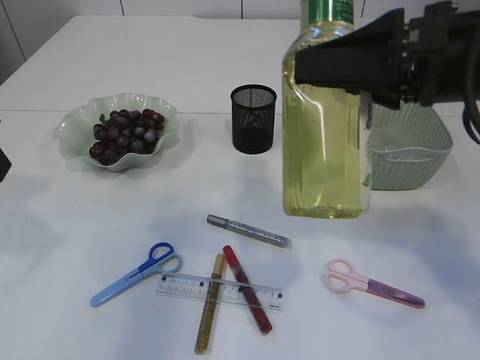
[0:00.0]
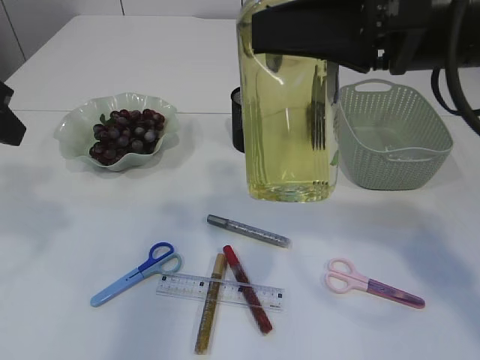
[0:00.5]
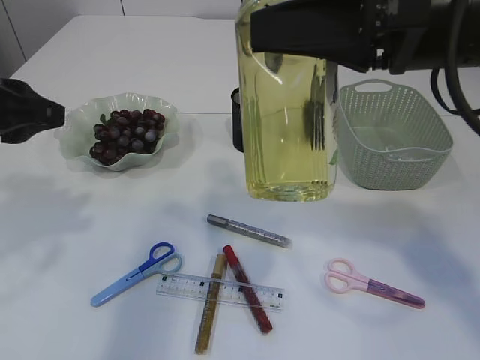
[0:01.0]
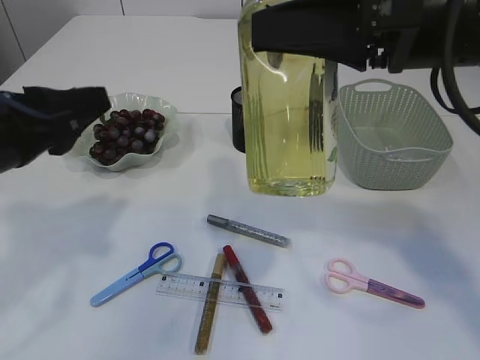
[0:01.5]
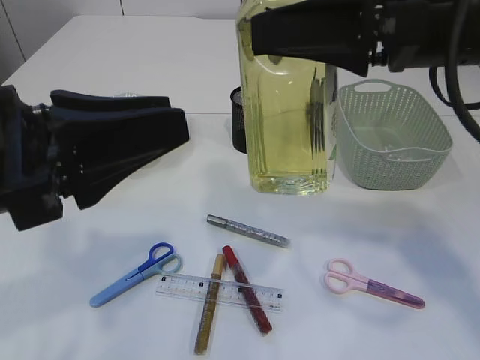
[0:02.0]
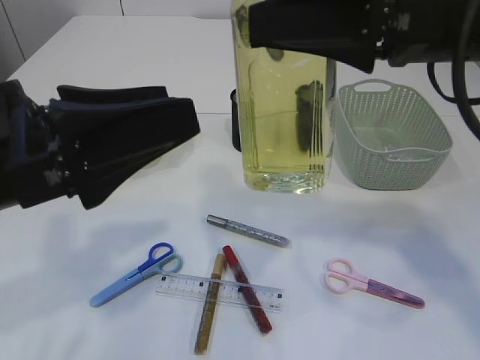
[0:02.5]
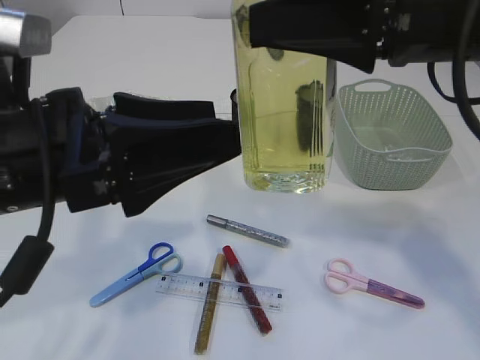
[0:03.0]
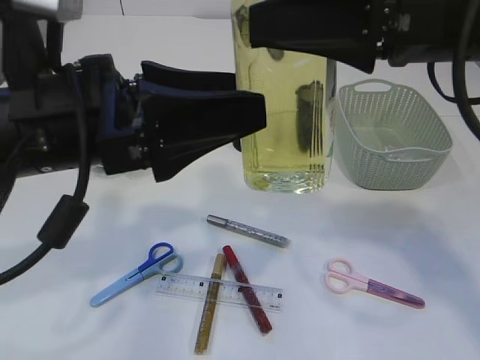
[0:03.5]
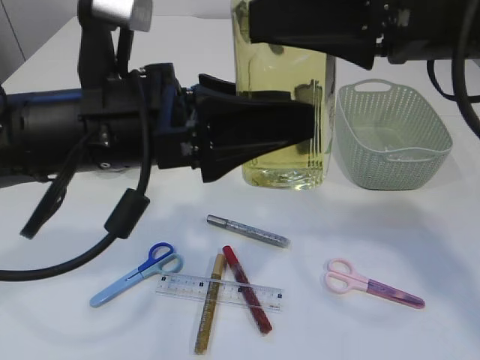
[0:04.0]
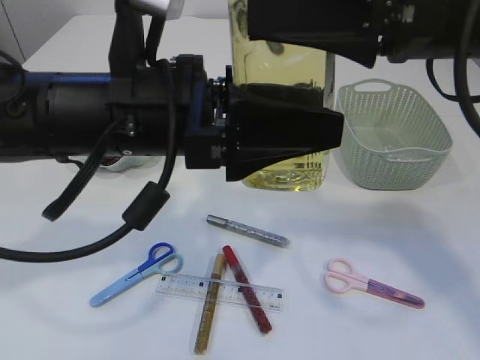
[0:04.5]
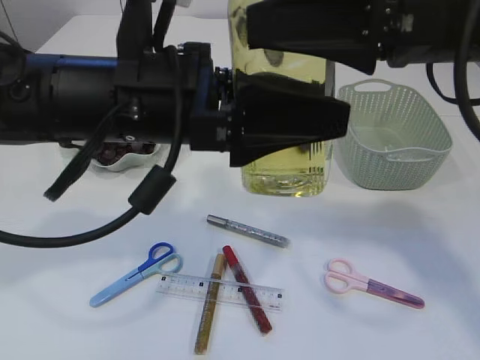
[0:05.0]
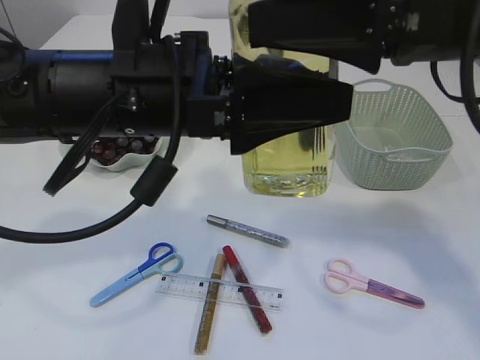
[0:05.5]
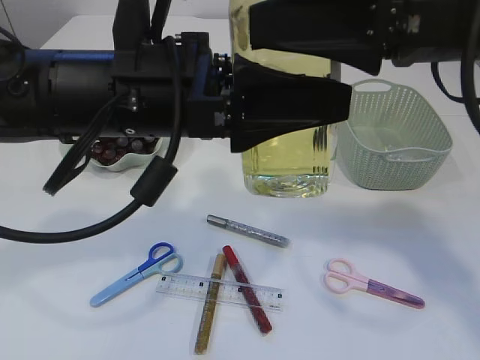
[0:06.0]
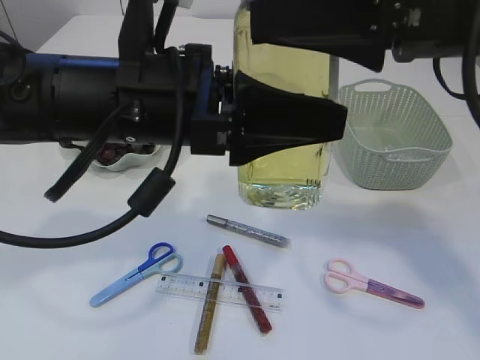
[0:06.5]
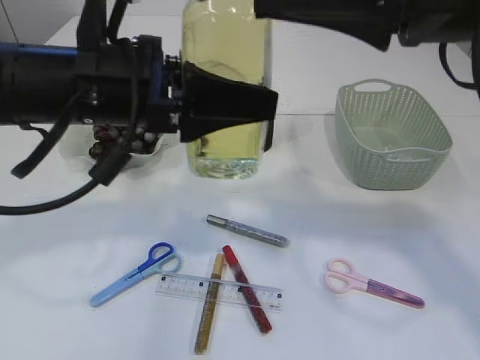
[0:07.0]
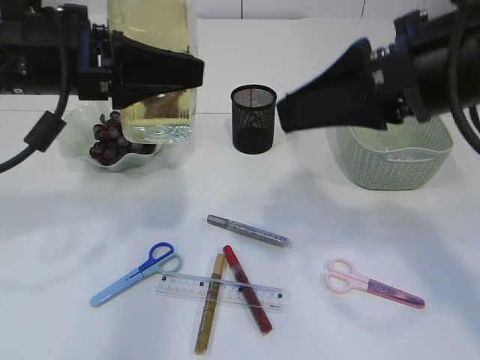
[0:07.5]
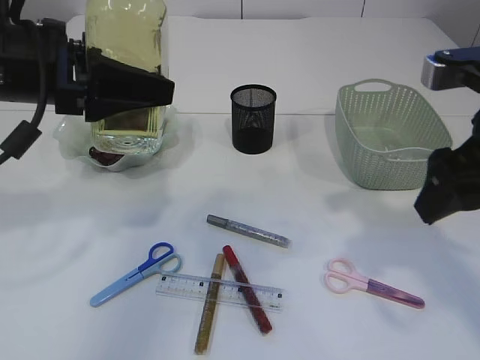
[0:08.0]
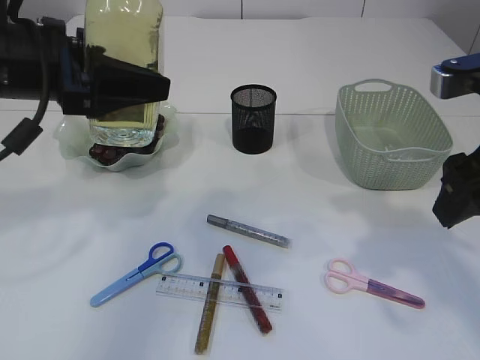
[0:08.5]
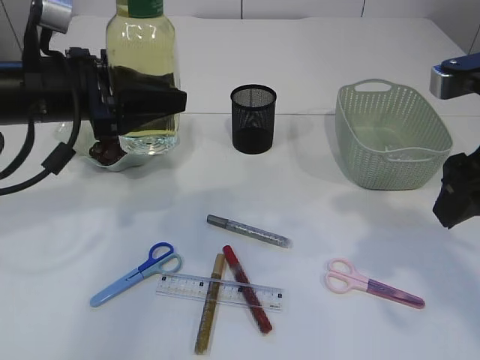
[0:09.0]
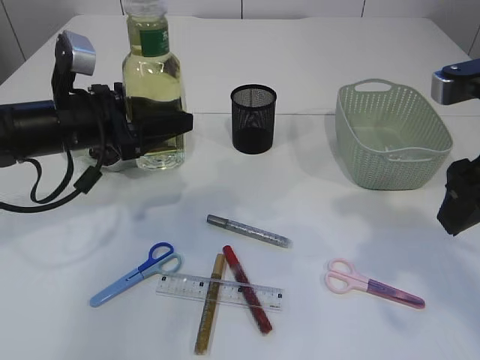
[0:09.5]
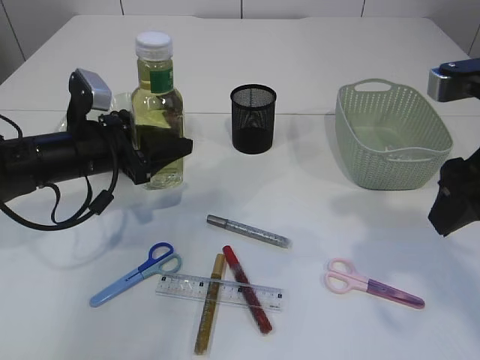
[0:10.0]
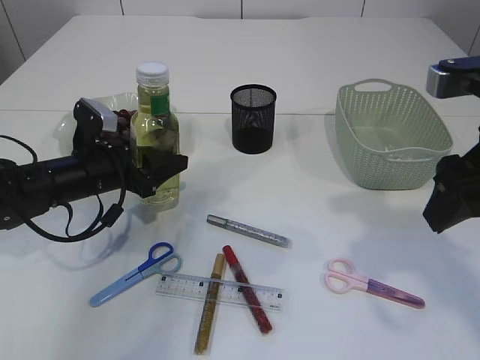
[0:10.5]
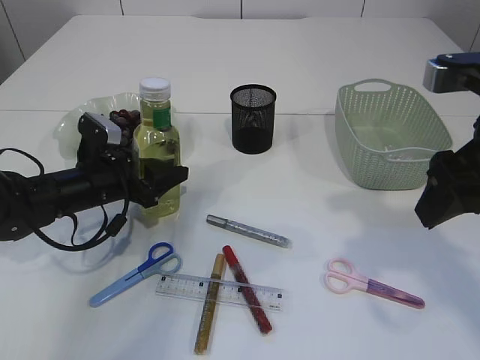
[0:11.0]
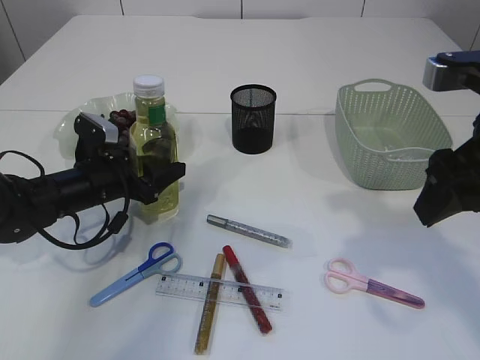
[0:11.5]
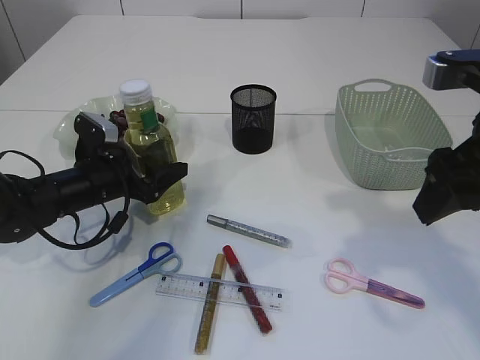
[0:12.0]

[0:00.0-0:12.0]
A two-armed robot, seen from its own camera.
Step, 0:00.0 to 0:07.5: transfer the bottle to the left arm.
0:00.0 to 0:02.0: The left gripper goes some 10 cm to the right and backward.
0:02.0 to 0:04.0: The left gripper moves to the right and forward, roughly 10 cm, and opens its fingers.
0:06.0 to 0:08.0: The left gripper moves to the left and forward, some 15 cm. The right gripper moves to the right and downward, roughly 10 cm.
0:08.0 to 0:10.0: The left gripper goes approximately 15 cm downward and forward.
0:10.0 to 0:12.0: The left gripper is displaced downward by some 5 cm.

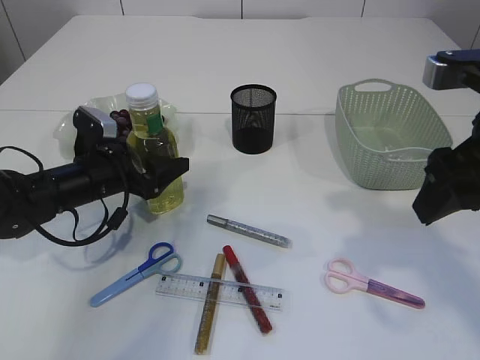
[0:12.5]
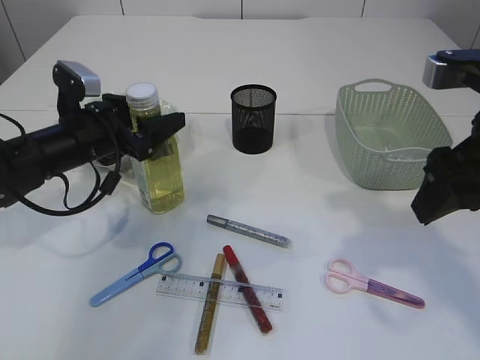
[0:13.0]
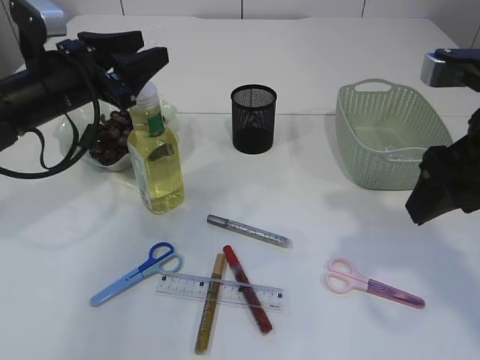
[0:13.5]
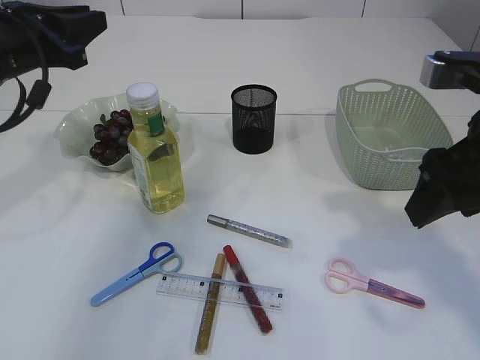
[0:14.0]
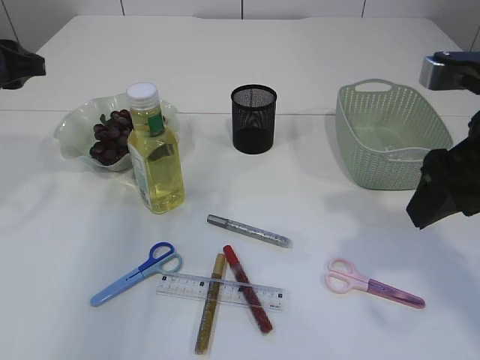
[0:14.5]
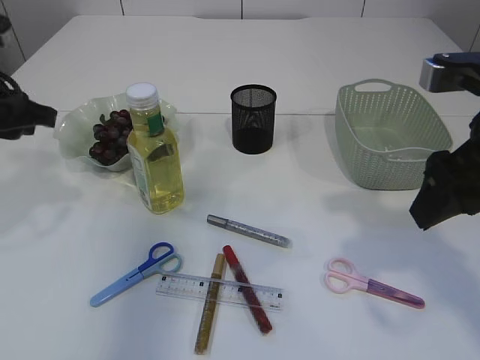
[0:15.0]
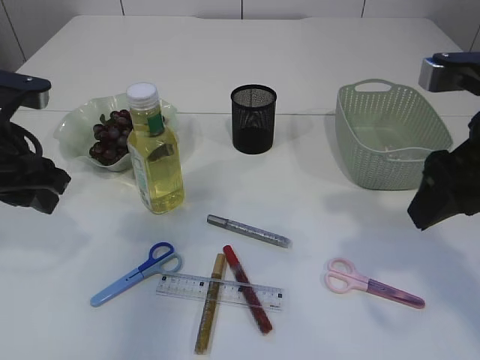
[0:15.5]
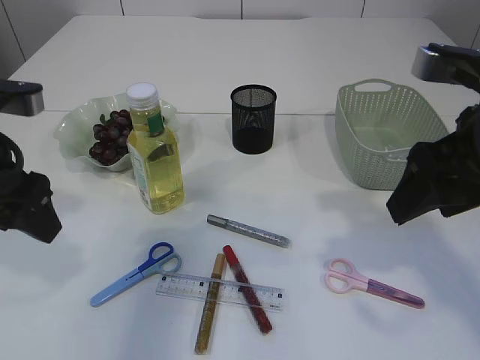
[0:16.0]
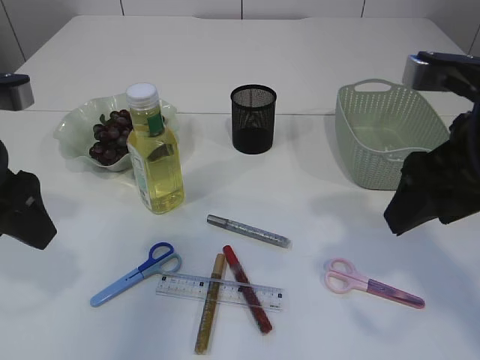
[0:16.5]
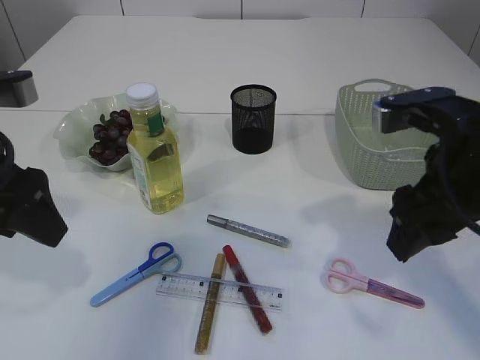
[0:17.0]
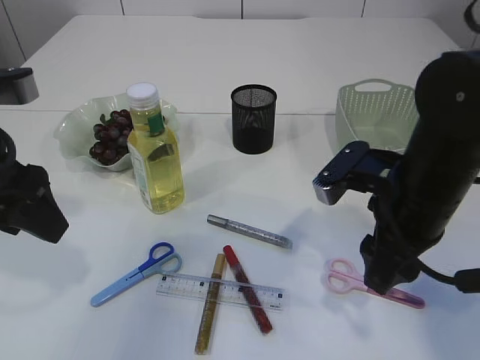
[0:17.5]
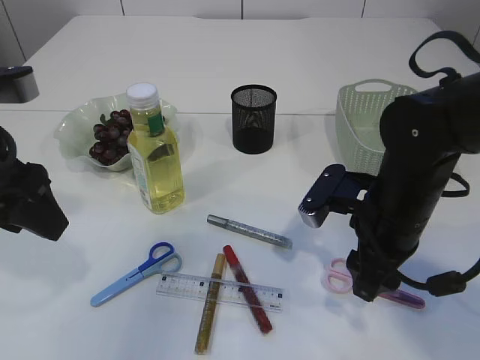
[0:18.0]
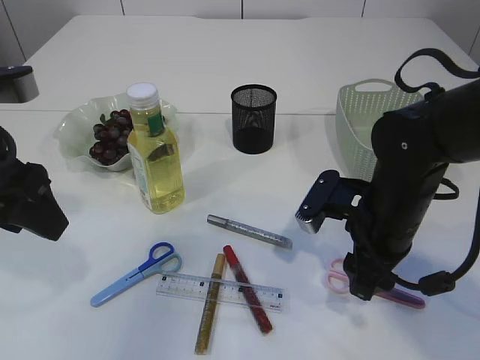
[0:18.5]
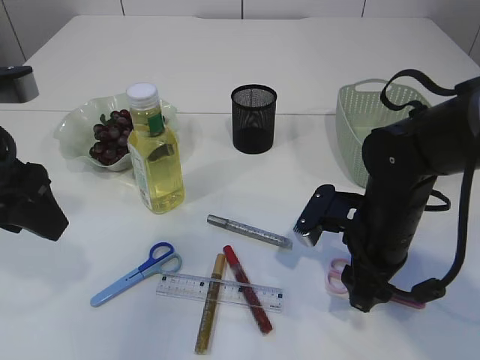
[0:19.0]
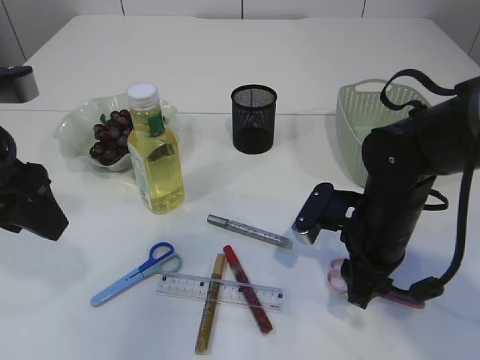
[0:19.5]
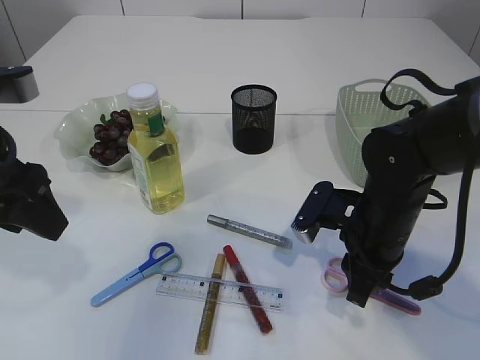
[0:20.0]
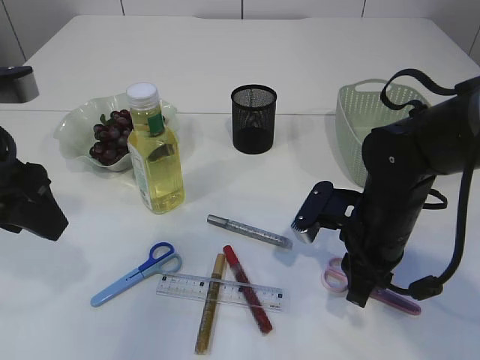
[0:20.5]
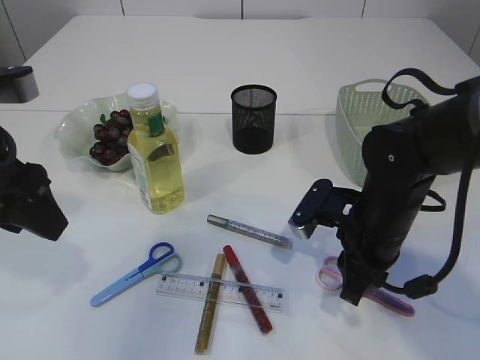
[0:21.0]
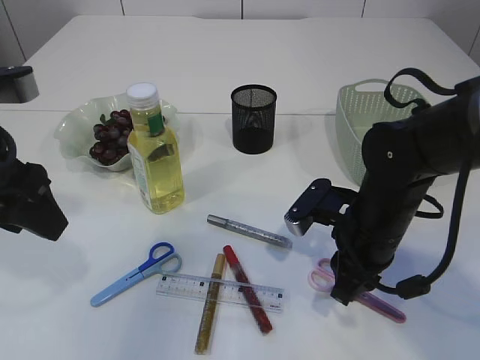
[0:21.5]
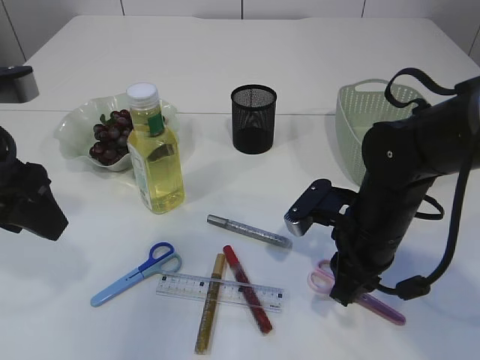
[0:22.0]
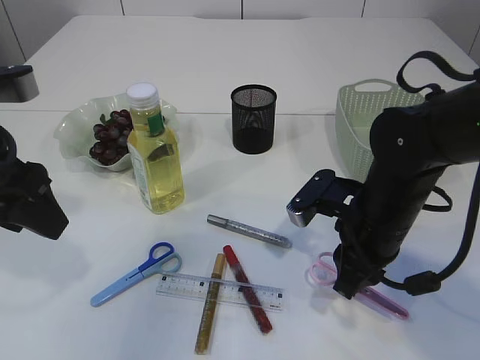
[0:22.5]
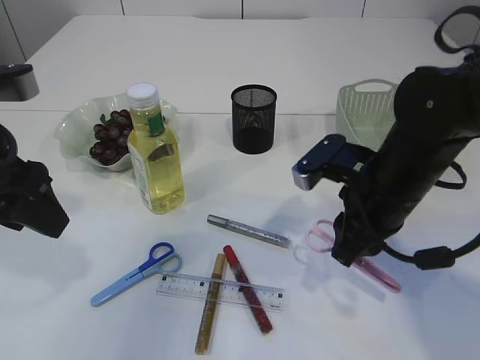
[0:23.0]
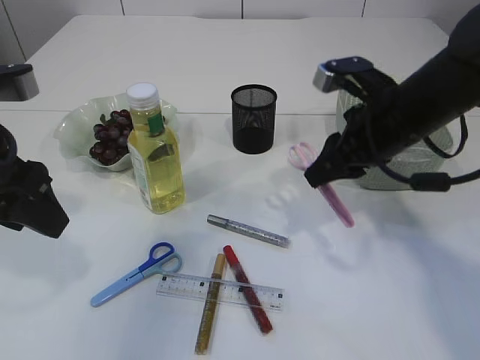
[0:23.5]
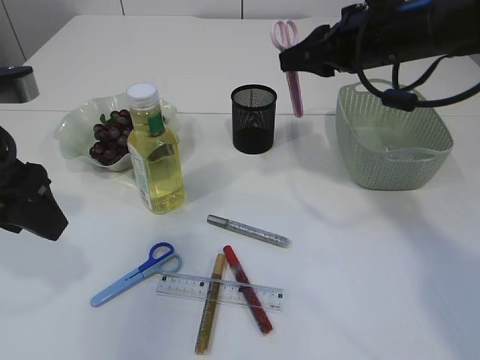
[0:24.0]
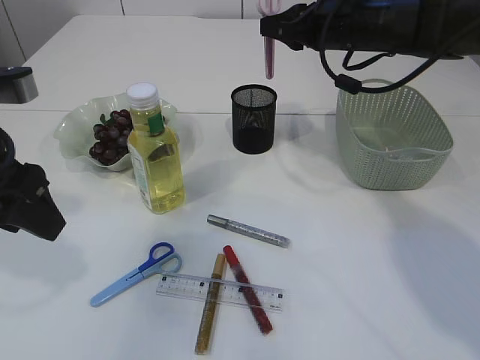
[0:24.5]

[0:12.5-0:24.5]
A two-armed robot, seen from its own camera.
Step, 0:14.0 to 0:23.0: pick up the pink scissors.
0:12.5 to 0:14.5: The left gripper travels upward and to the left by roughly 20 cm, and closes.
0:14.5 to 0:16.5: The left gripper moves backward and to the right, roughly 15 cm, and opens.
0:16.5 to 0:18.5: The right gripper is displaced downward and forward by some 15 cm.
0:18.5 to 0:20.5: The right gripper closes.
0:20.5 to 0:22.5: The grippers stay close to where they were, moving slightly.
0:22.5 to 0:24.5: The right gripper moves forward and upward, some 20 cm.

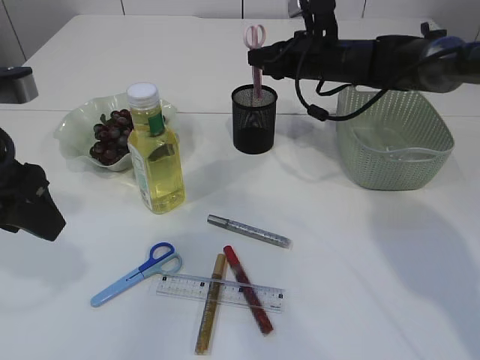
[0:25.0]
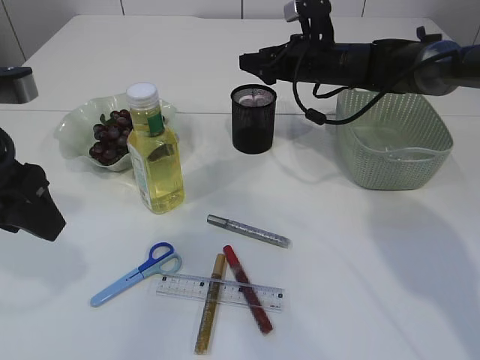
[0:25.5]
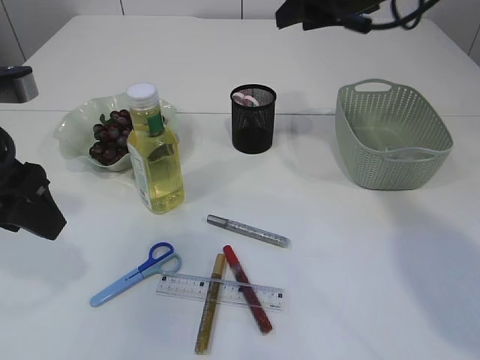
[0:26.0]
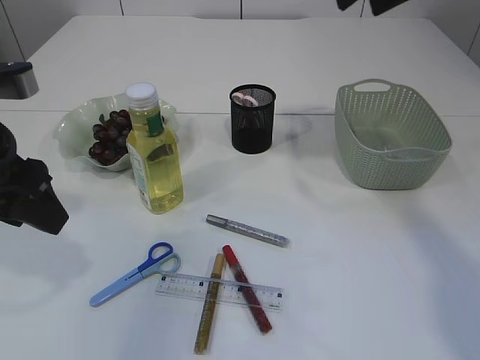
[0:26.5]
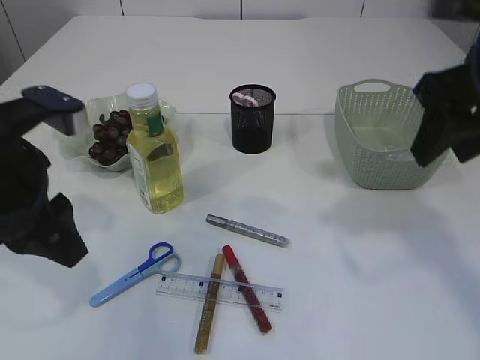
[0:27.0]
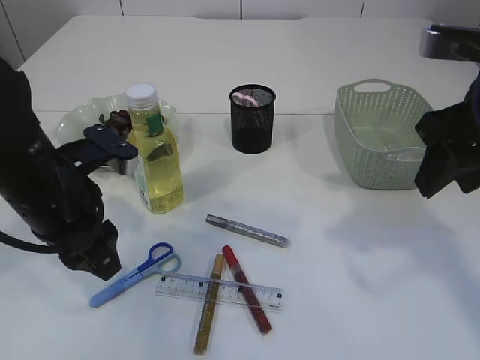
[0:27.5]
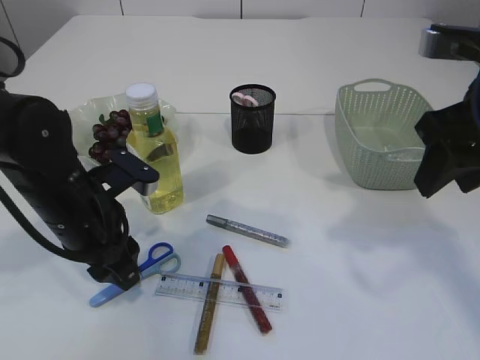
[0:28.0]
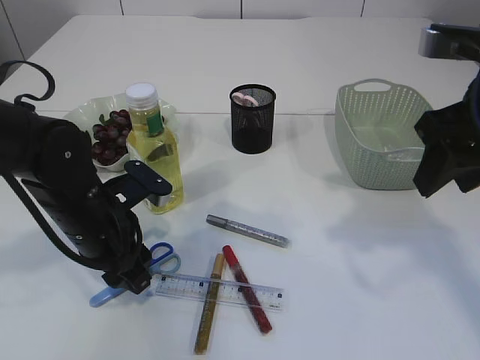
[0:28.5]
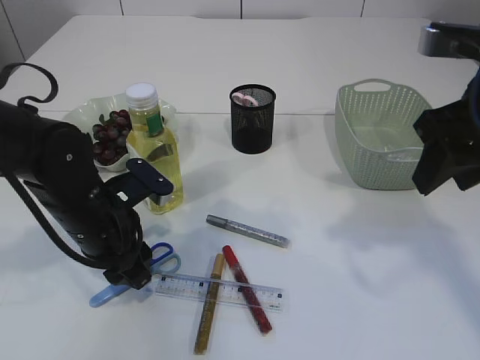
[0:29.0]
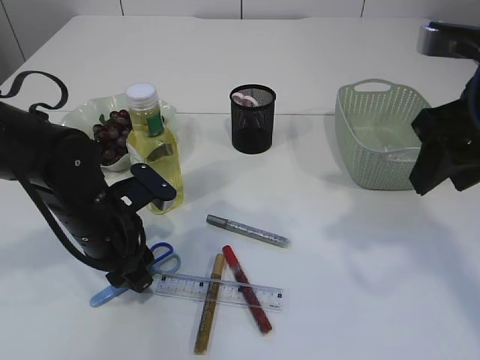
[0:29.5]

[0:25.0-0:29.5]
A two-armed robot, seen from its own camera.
0:25.0 to 0:27.0: The right gripper goes roughly 30 cm backward and upward, and opens.
0:27.0 to 0:29.5: The left gripper heads downward, covering some 15 cm.
